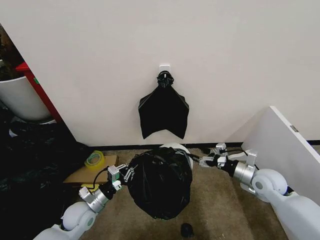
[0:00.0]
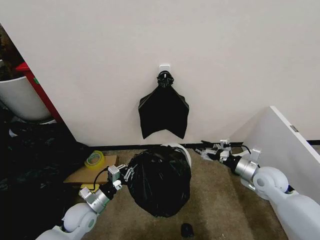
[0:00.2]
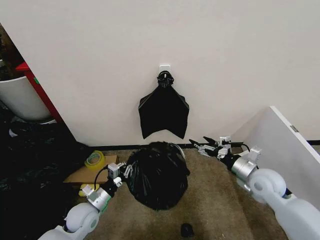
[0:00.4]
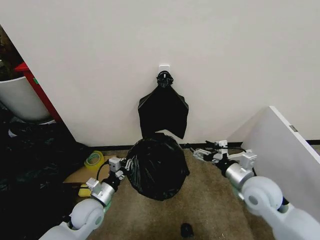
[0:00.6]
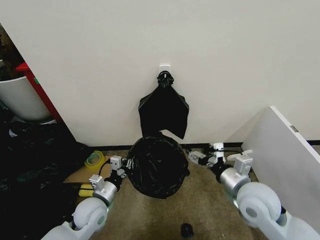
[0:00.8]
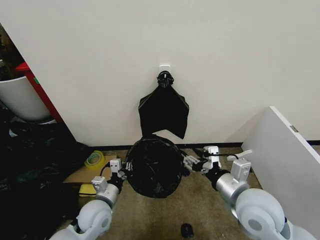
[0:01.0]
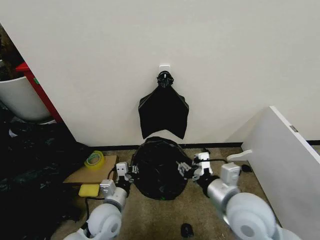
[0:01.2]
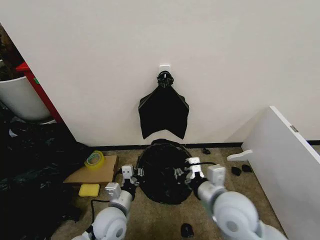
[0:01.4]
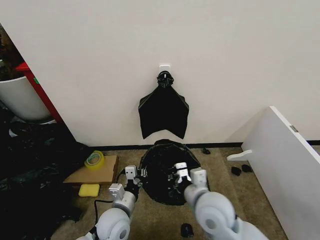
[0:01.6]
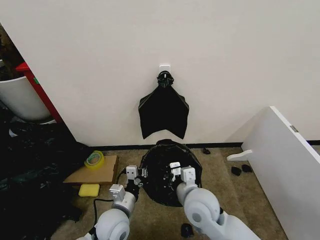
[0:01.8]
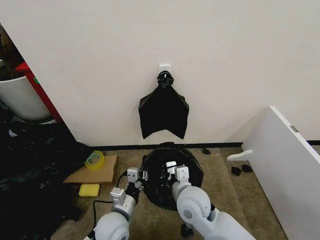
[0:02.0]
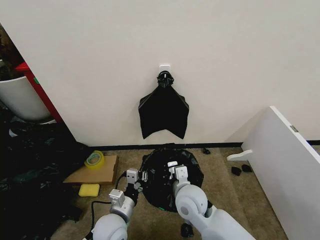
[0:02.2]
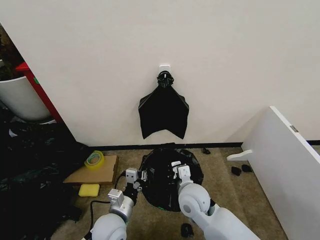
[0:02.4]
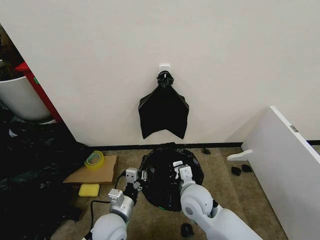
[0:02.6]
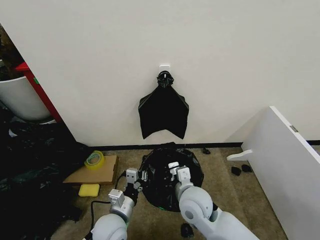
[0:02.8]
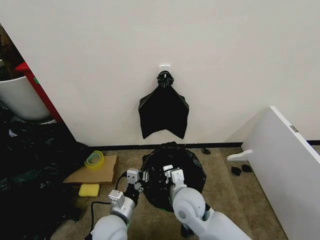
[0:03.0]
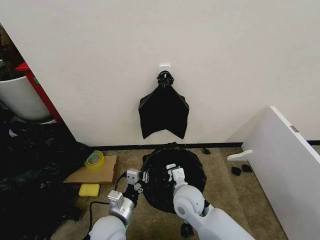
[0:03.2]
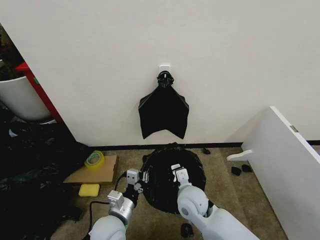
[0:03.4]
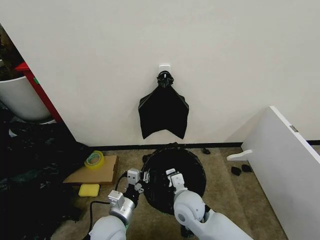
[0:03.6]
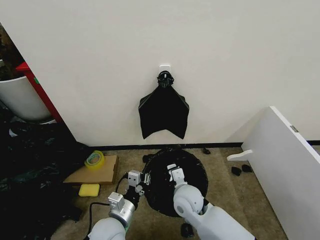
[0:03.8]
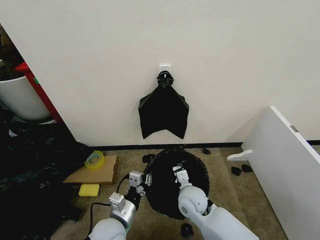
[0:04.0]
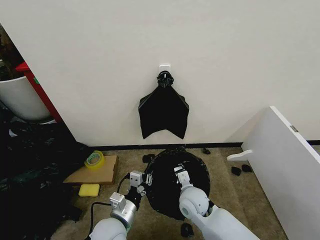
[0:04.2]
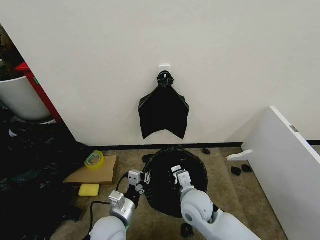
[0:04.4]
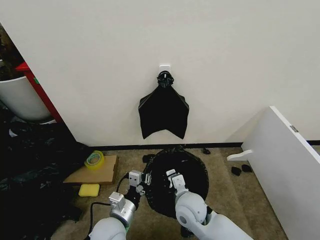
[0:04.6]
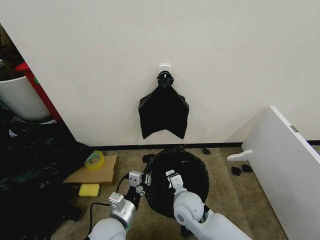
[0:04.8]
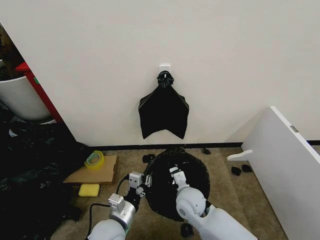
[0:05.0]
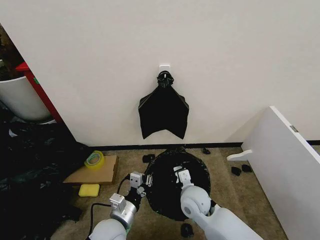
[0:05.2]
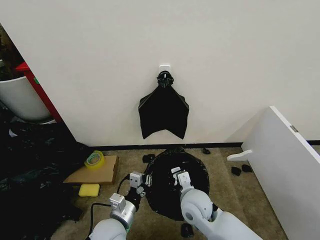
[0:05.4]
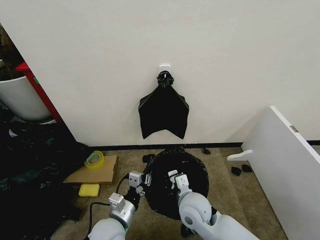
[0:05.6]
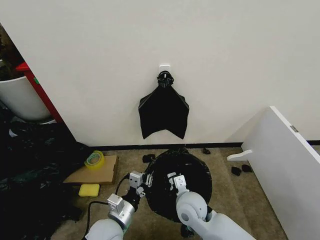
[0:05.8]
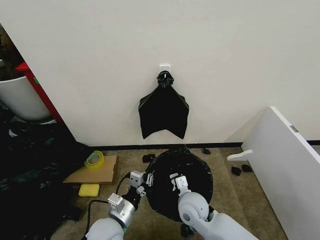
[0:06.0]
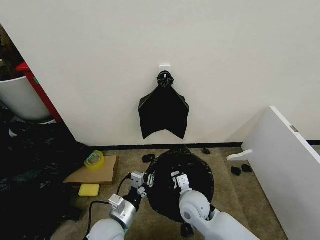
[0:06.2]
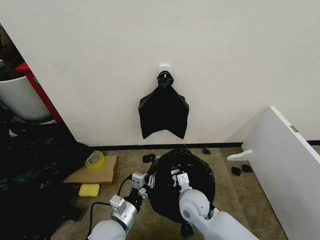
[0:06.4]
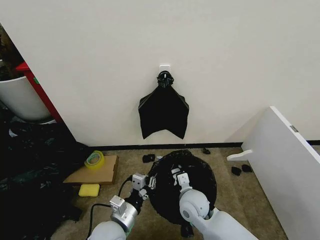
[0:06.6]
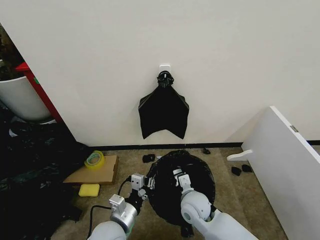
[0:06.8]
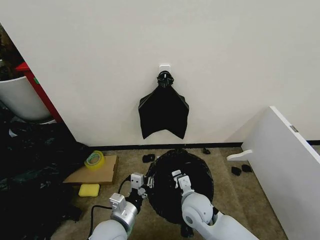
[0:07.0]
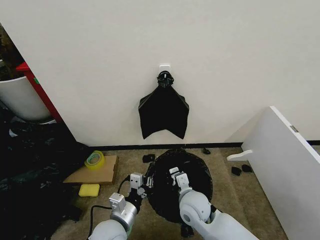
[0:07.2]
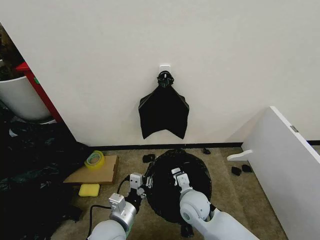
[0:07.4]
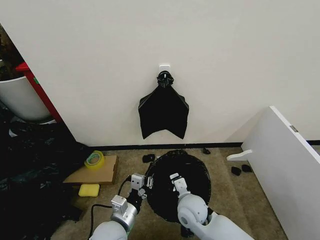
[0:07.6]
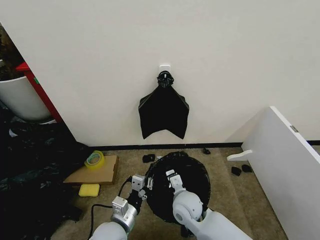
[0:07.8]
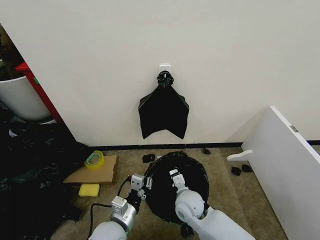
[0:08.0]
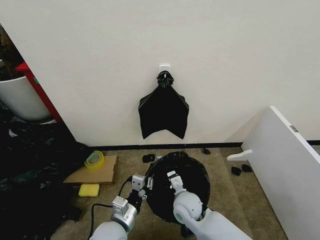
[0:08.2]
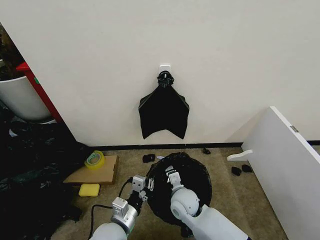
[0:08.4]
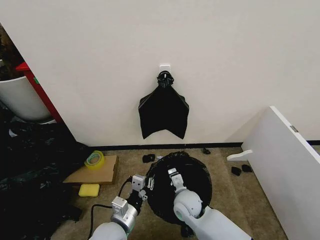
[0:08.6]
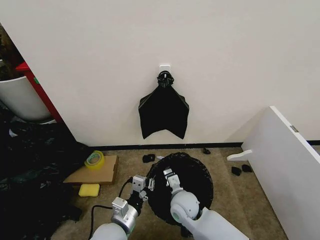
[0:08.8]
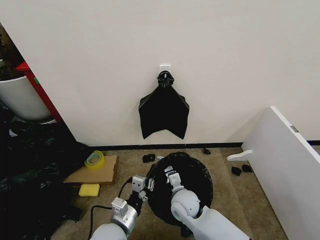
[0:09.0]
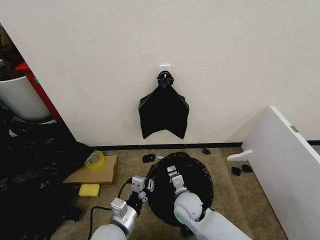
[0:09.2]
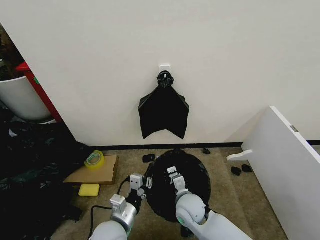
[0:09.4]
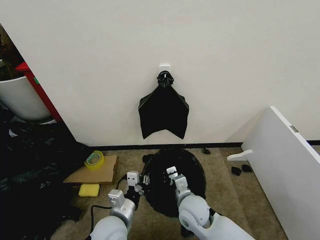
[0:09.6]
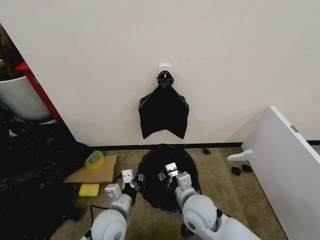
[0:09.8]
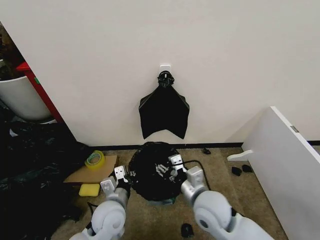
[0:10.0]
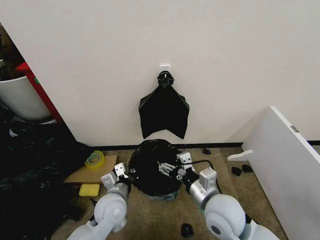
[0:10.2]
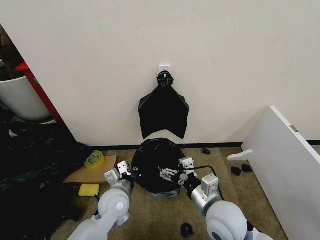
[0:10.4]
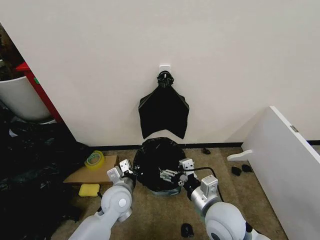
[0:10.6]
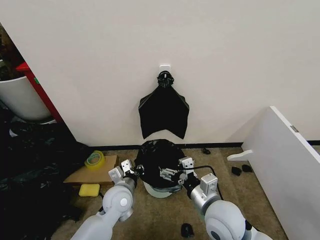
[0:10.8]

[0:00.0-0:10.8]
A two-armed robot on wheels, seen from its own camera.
Task of the whole recording: Place the garbage bag over the trash bin.
0:00.0 to 0:01.6: The left gripper is displaced to the right by approximately 15 cm. Meanwhile the right gripper travels to the left and backward by approximately 25 cm, and closes up.
0:01.6 to 0:03.0: The right gripper heads to the left and downward, covering roughly 5 cm.
0:04.6 to 0:07.8: The grippers make only small movements.
0:07.8 to 0:09.2: The grippers make only small movements.
0:09.2 to 0:10.8: The right gripper heads upward, backward and to the right, covering roughly 15 cm, and opens. The left gripper goes some 10 cm forward.

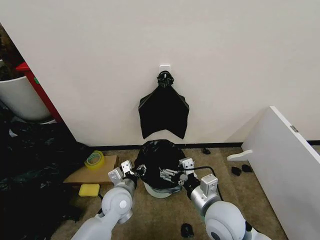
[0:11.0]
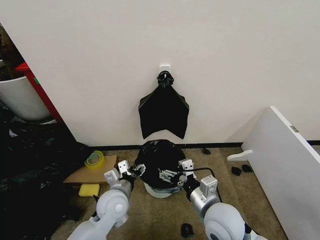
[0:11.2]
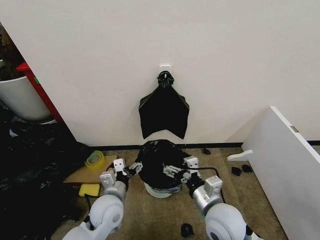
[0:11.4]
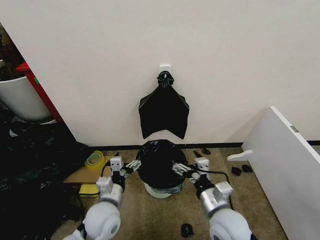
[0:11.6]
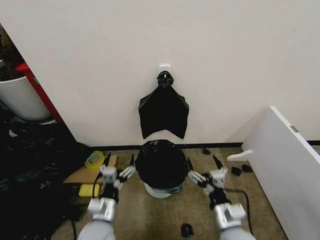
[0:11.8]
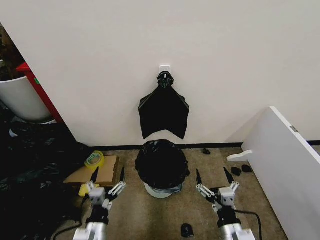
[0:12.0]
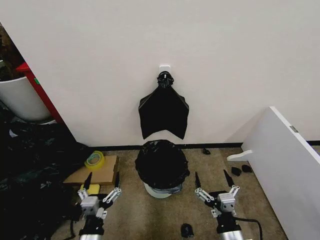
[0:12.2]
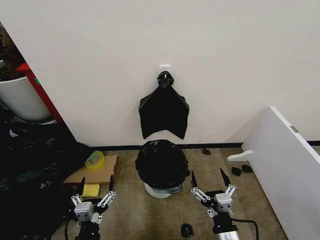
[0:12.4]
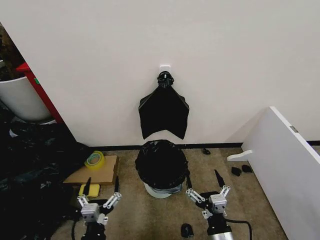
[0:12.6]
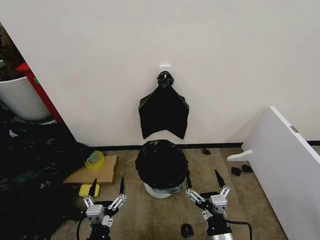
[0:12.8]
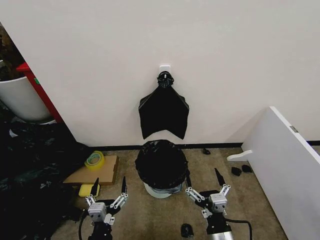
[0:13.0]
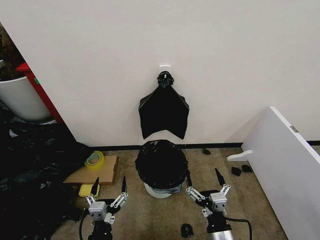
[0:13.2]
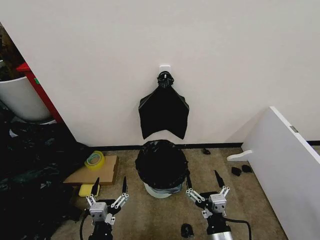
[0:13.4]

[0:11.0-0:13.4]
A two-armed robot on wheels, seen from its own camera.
Task of the whole recording: Place the garbage bag over the trash bin.
0:11.0 to 0:12.2: The right gripper travels backward and downward by approximately 15 cm, while the left gripper is displaced backward by about 20 cm, and opens its fingers.
0:12.2 to 0:13.4: There are only small adjustments of the grippers.
